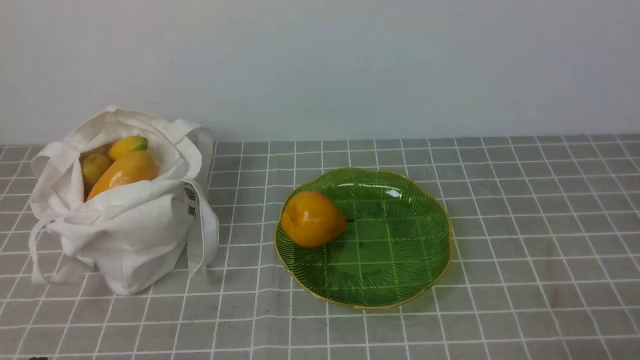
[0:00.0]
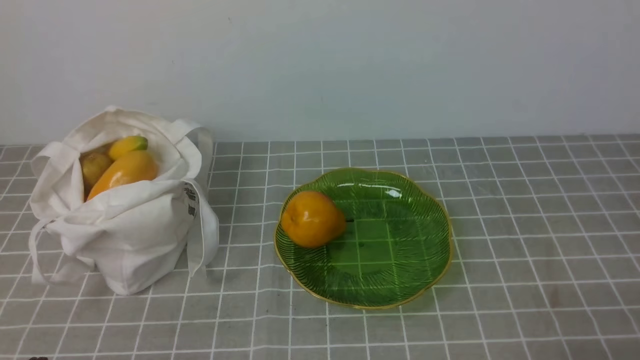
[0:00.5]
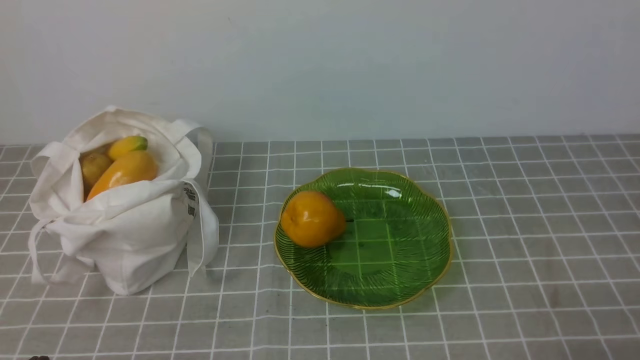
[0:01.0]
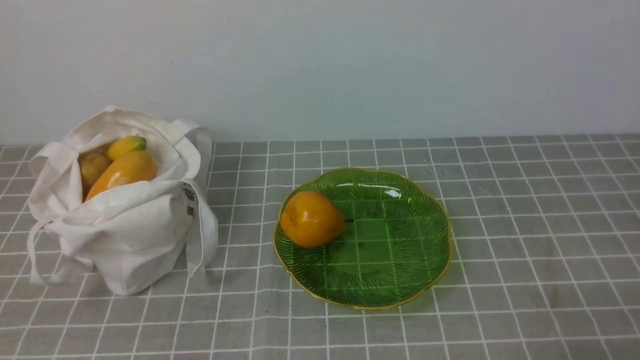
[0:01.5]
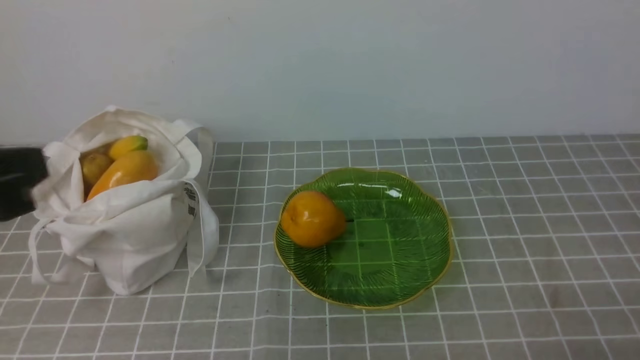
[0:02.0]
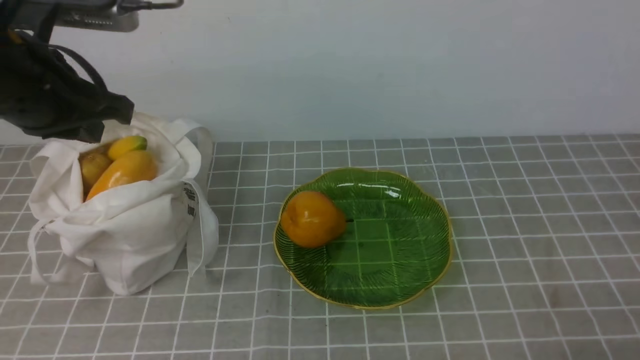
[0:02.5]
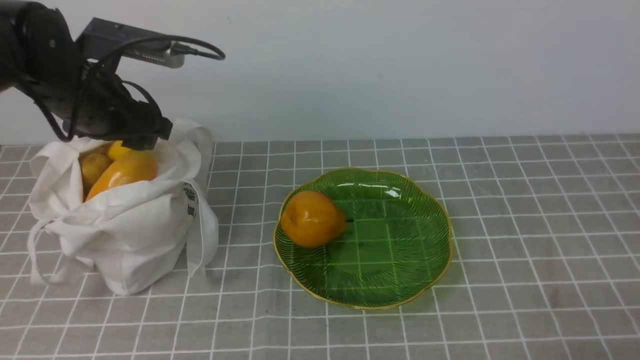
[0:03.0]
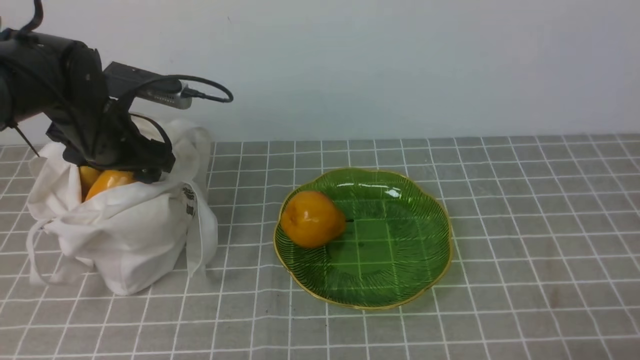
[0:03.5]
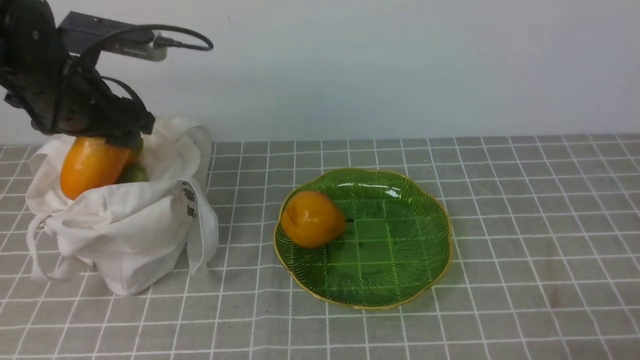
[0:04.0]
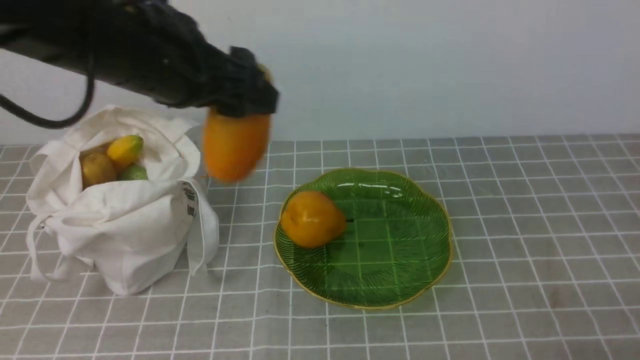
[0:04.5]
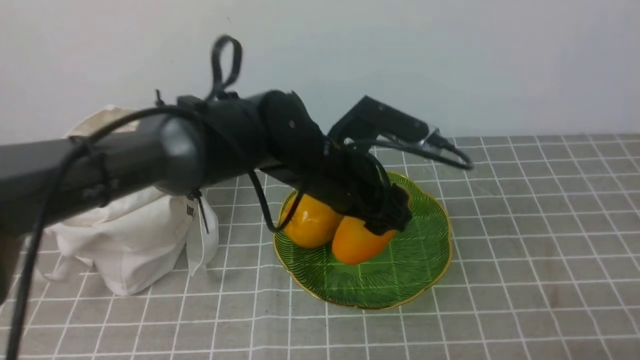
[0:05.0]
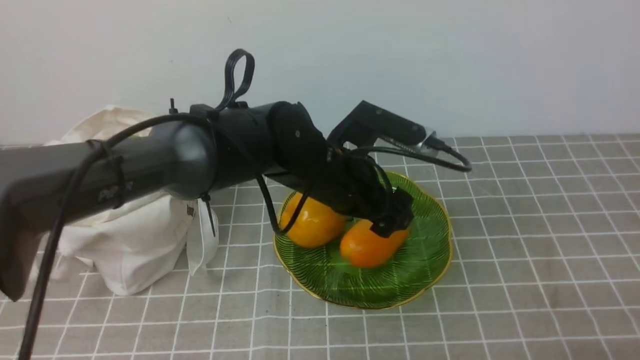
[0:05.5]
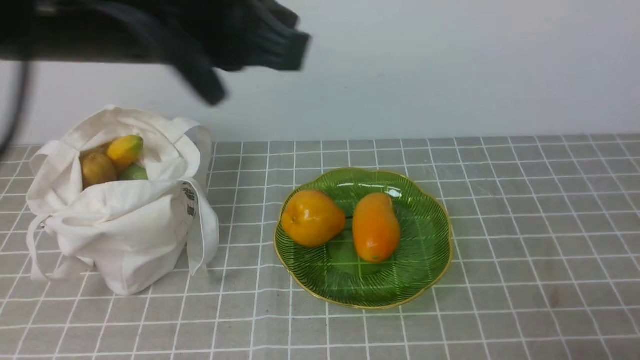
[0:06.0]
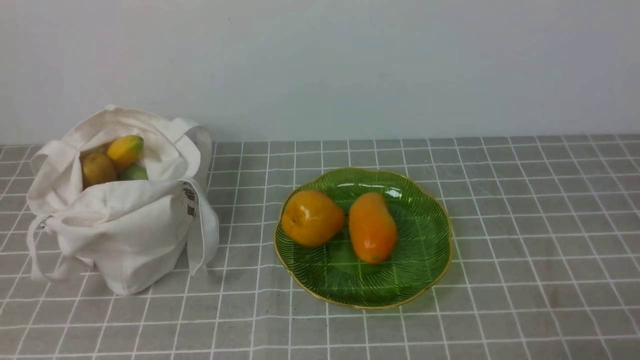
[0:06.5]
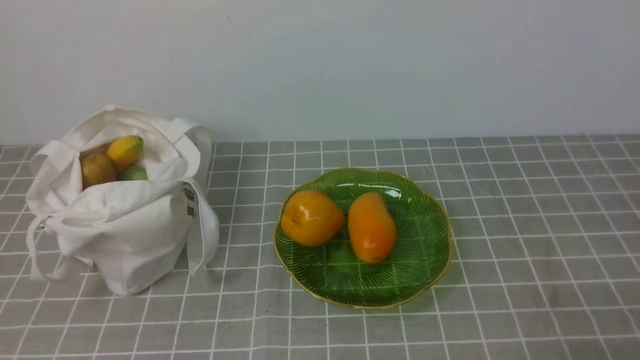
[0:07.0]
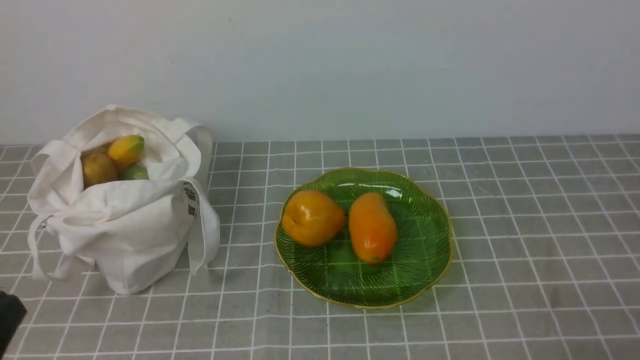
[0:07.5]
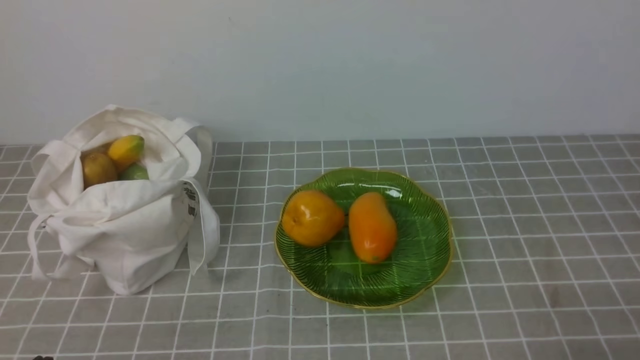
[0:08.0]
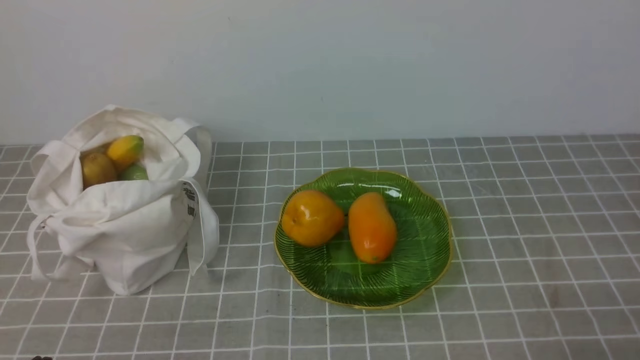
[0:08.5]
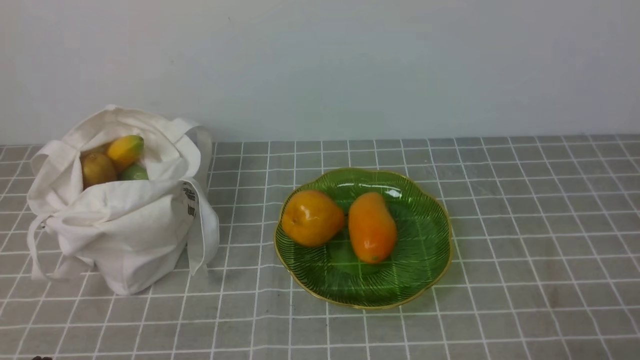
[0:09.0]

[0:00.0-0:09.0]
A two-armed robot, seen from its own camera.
Step, 0:00.0 to 0:03.5: use the left arm to grab a mango from the bag.
Step, 0:04.5 to 0:05.0: use the left arm to put the mango into the empty plate on the right.
0:02.0 to 0:04.5: The left gripper is displaced forward by some 20 cm, and opens up.
0:04.5 to 0:07.0: The left gripper goes roughly 30 cm backward, and closes.
